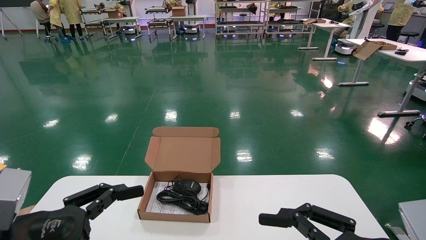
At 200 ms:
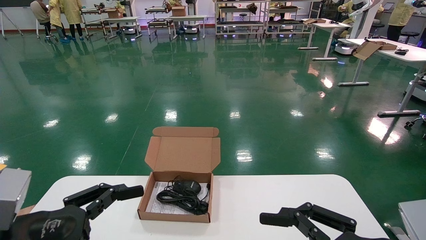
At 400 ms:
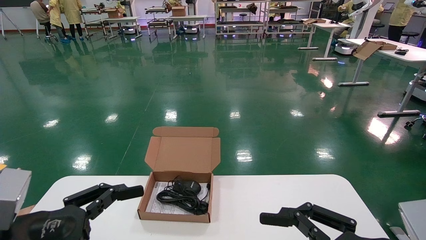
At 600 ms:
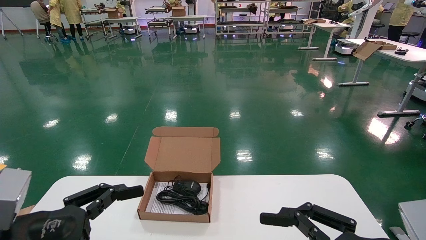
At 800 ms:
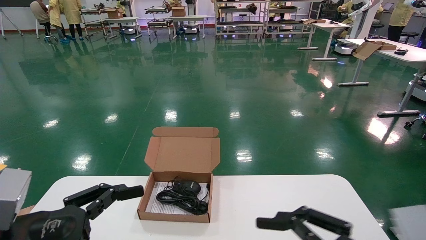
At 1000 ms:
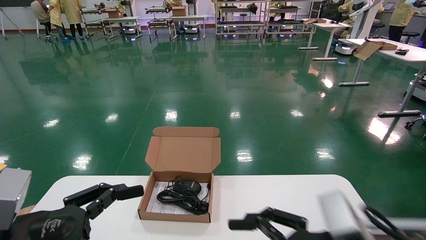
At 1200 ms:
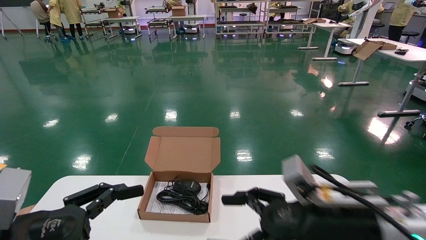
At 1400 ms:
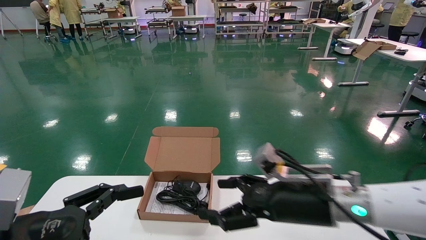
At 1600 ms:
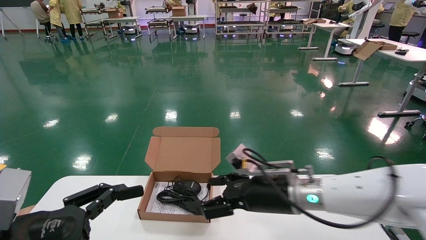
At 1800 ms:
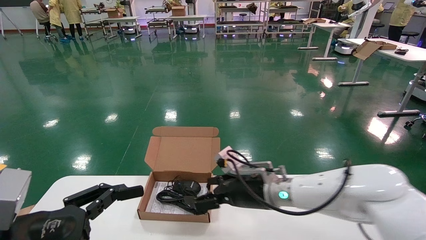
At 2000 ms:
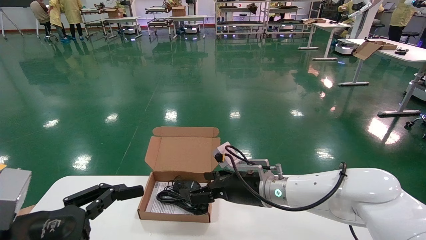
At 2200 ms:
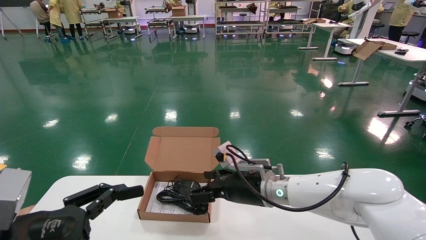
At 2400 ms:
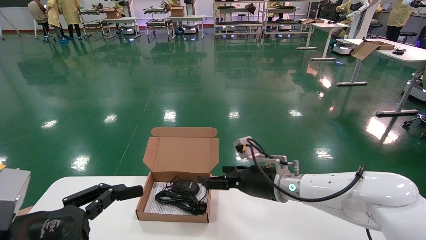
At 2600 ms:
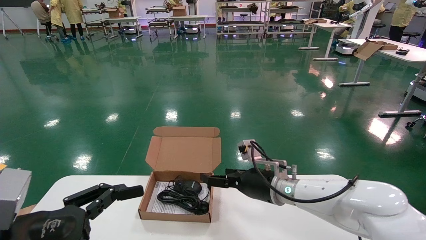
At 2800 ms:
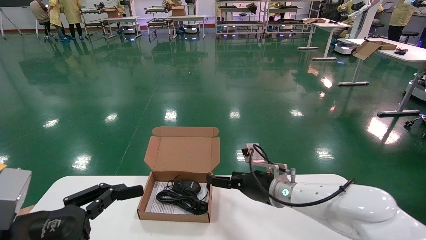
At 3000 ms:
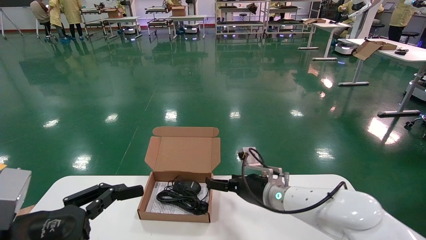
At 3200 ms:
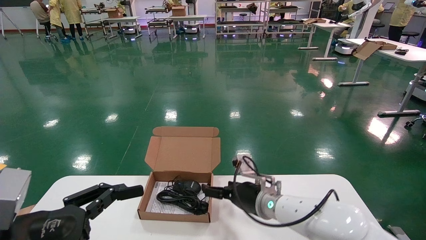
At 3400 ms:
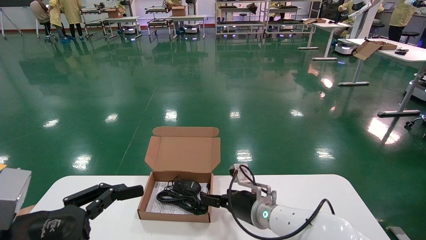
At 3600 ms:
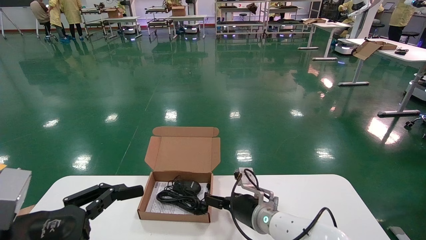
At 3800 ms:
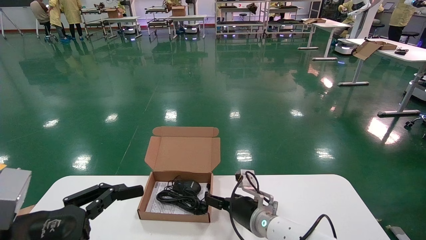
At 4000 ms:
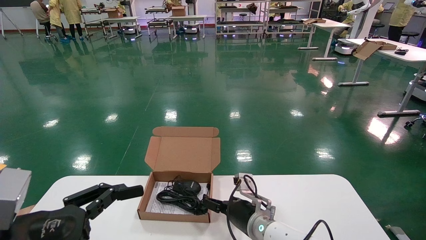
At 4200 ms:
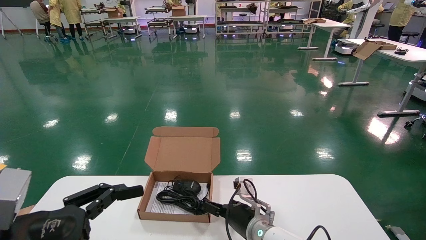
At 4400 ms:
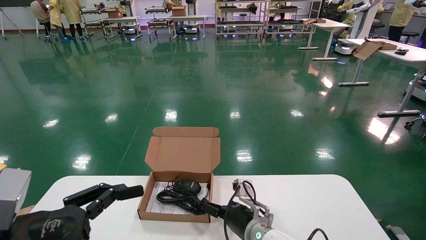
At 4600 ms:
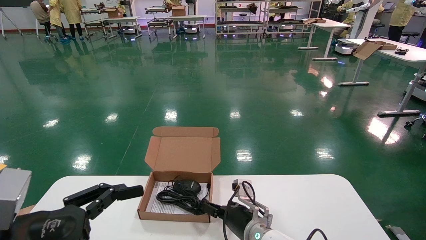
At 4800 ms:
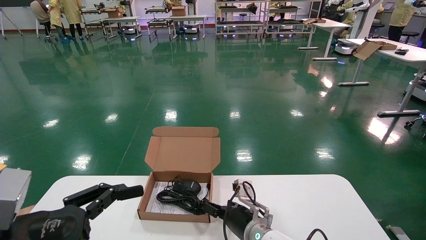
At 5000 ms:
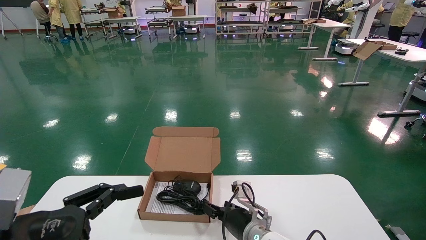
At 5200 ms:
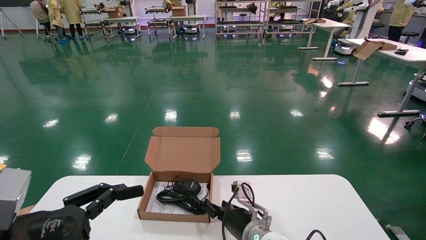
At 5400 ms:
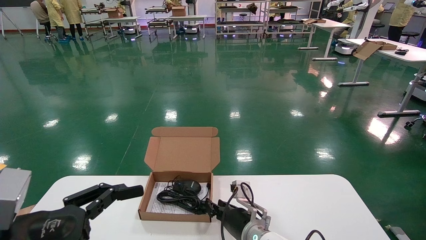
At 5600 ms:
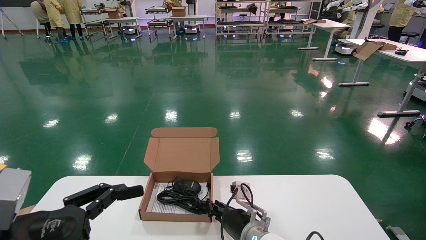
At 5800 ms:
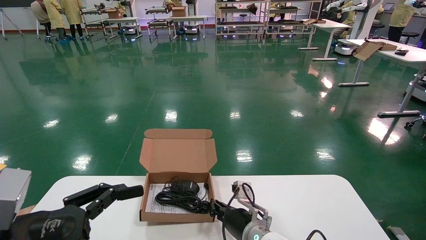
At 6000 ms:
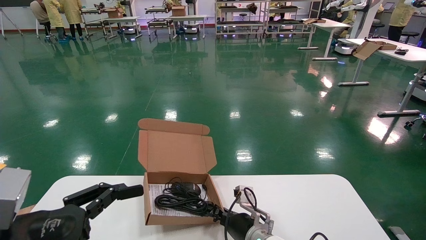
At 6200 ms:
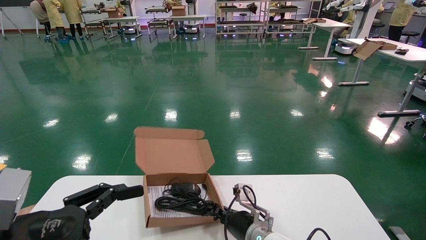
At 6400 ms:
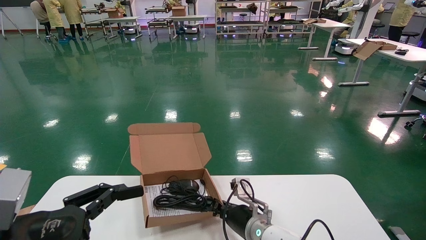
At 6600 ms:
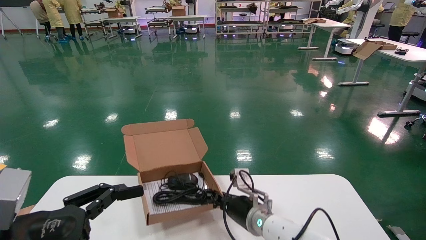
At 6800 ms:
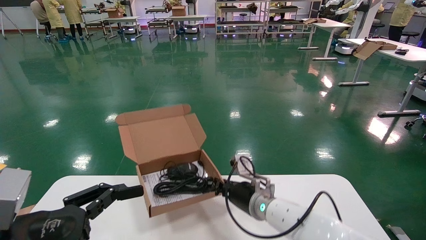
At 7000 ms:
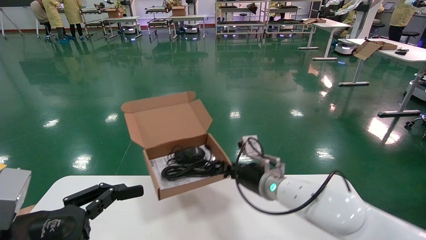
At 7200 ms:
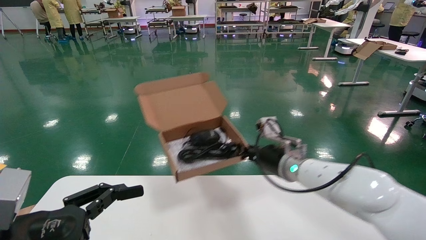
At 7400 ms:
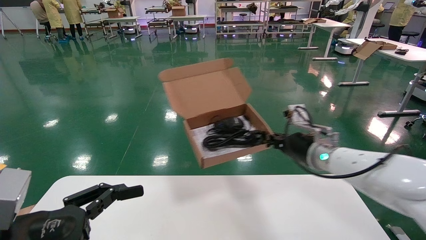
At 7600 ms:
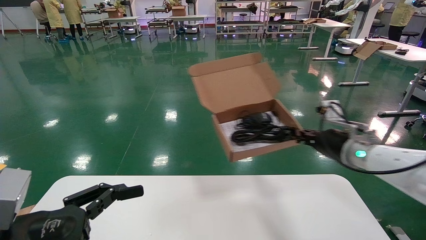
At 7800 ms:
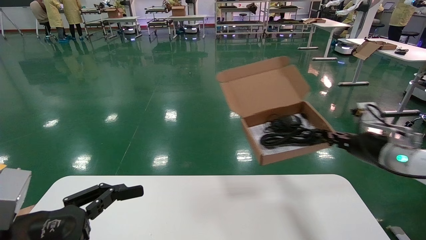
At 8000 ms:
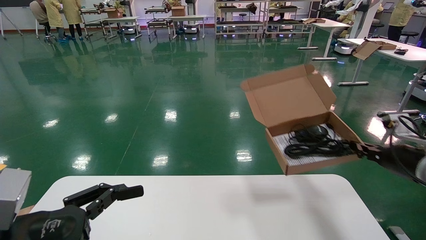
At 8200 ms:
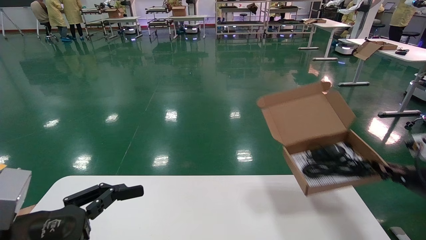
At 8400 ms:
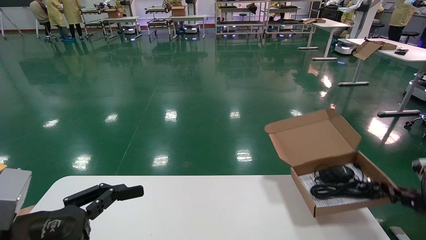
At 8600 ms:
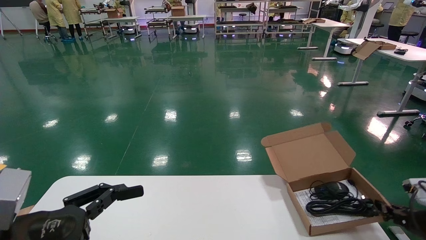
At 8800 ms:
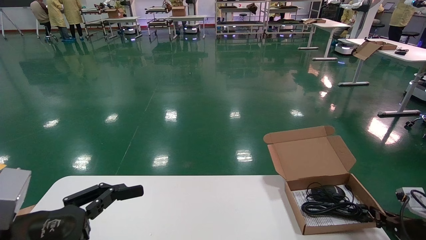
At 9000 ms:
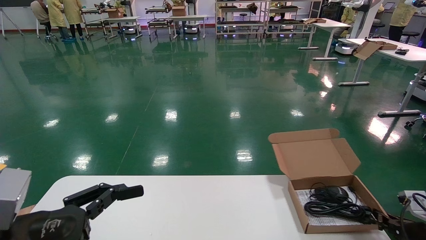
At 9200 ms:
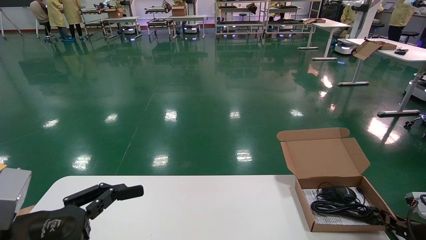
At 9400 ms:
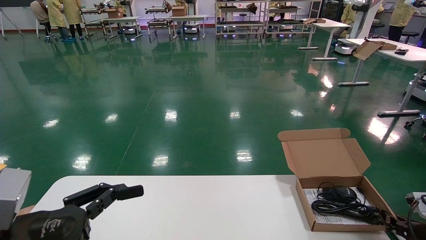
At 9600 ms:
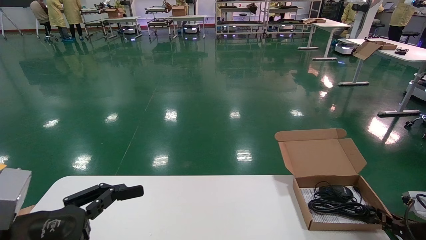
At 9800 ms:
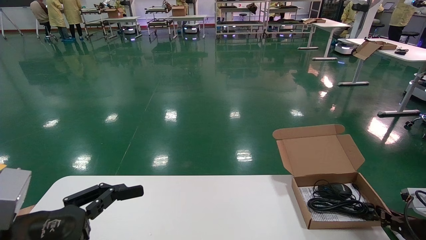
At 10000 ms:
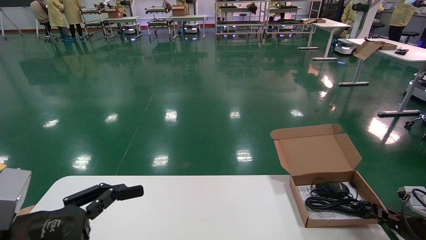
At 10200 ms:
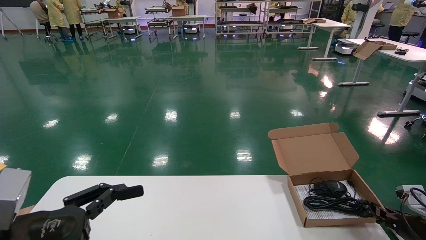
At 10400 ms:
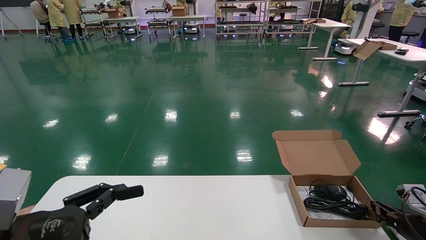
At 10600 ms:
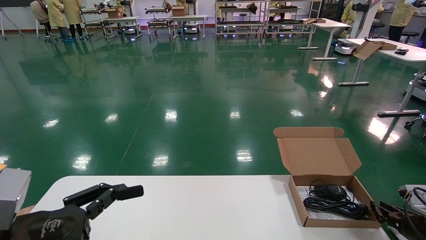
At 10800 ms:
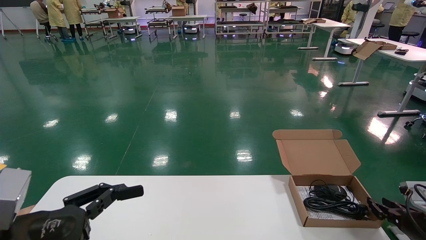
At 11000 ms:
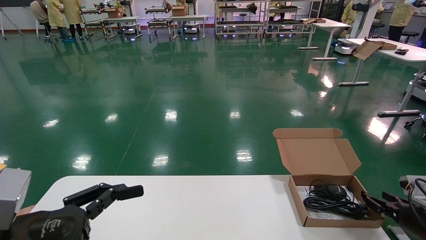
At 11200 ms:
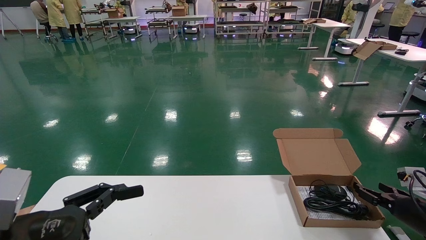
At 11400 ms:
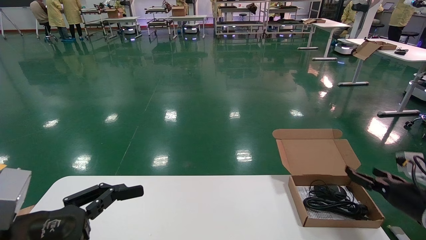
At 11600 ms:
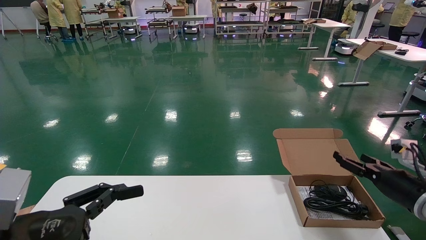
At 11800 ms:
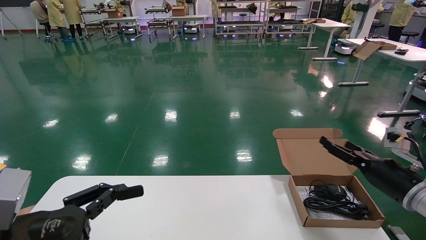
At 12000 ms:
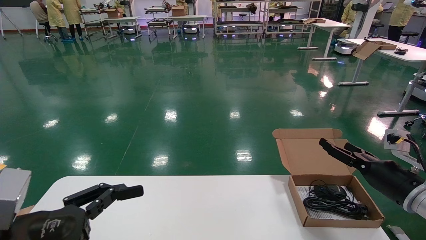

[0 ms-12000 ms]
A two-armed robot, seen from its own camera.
Task of the whole recording: move the position of the storage box with accessories on the table.
Step, 1000 ms to 6800 ms: Grab and pick up the open mouse box from the accessory packaging area.
Step, 7000 ms to 11000 ms: Place the open mouse box onto the operation table.
0 ms to 1600 ms: The right gripper is displaced forward and to the left by about 25 cm.
1600 ms to 3000 ms: The right gripper goes some 10 cm forward and downward.
3000 ms to 4400 ms: The right gripper heads downward, covering approximately 10 cm.
4400 ms to 6000 ms: The right gripper closes.
6000 ms to 7600 ms: The right gripper moves to the right and upward, roughly 30 cm.
7600 ms to 9000 ms: The right gripper travels downward and to the right by approximately 25 cm.
9000 ms to 10400 ms: Both grippers stay about where they are.
10400 ms to 12000 ms: The right gripper heads upward and to the left, covering approximately 15 cm, and opens its fingers.

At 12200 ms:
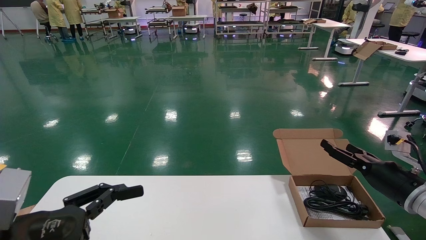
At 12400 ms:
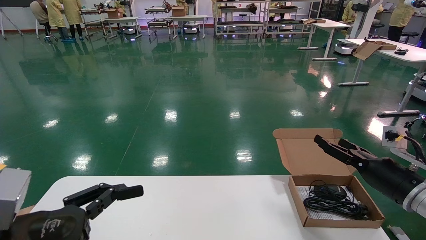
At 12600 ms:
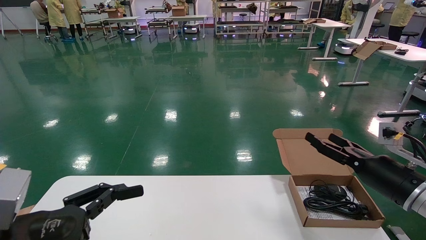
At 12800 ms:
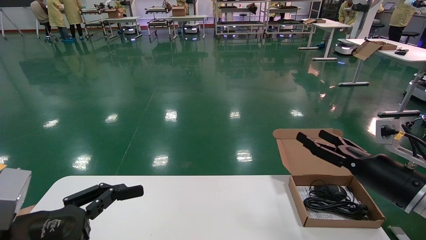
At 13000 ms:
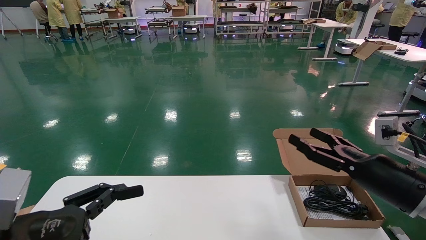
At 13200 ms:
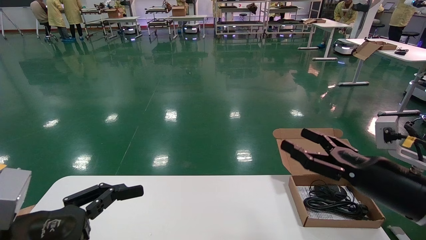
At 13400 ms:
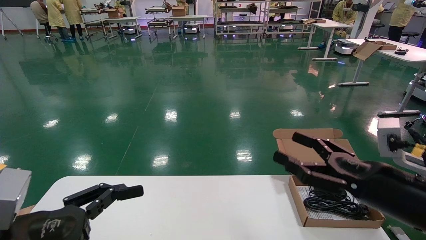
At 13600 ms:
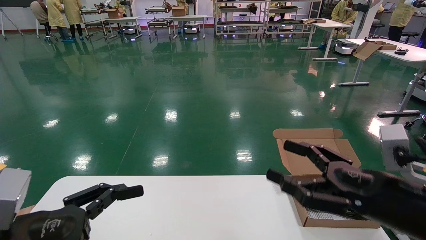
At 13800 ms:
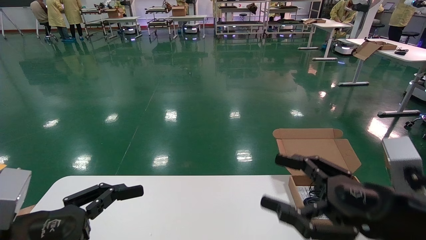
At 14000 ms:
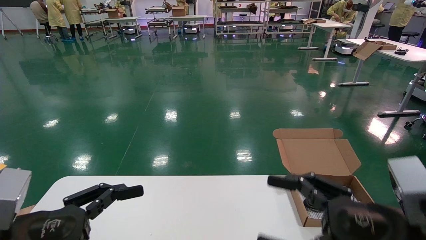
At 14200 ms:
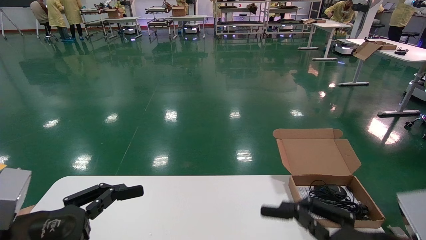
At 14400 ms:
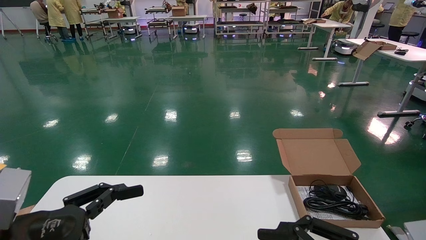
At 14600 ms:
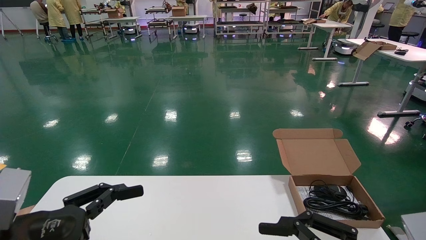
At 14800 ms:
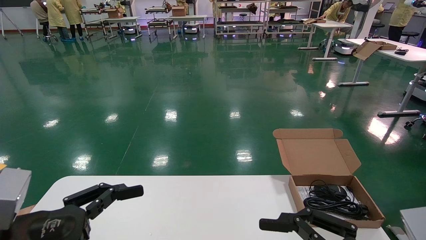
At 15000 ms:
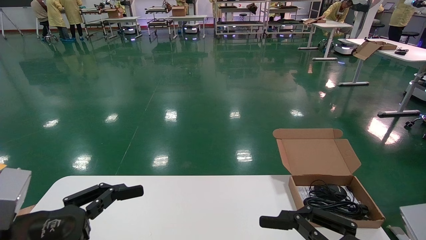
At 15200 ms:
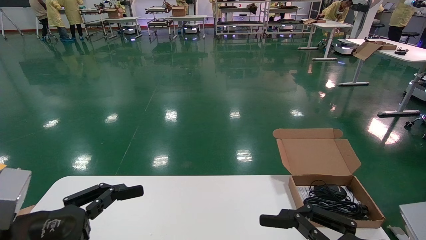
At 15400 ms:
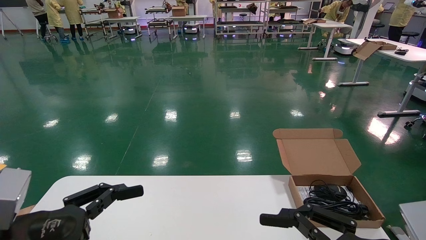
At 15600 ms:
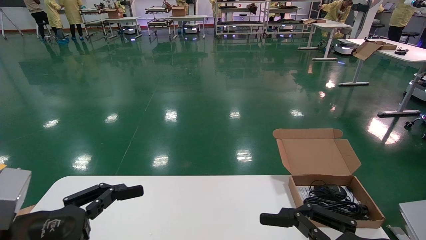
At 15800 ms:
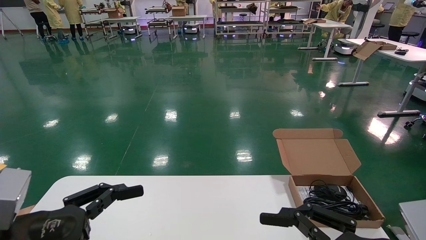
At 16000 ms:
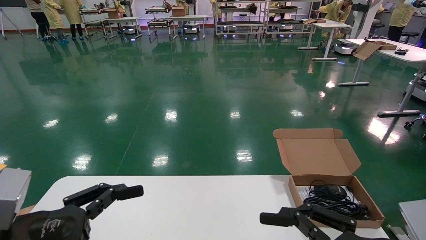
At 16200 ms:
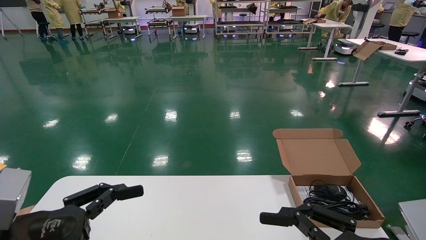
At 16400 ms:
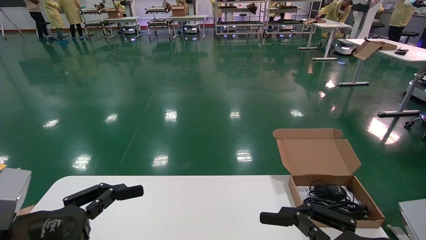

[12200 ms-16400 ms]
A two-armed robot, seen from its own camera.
Task of the whole recording: move the position of the storage box with accessories on the table.
12200 ms to 13600 ms: The right gripper moves backward and to the left, roughly 20 cm.
13600 ms to 15000 ms: The right gripper shifts some 10 cm backward.
15000 ms to 16400 ms: Neither gripper changes place.
